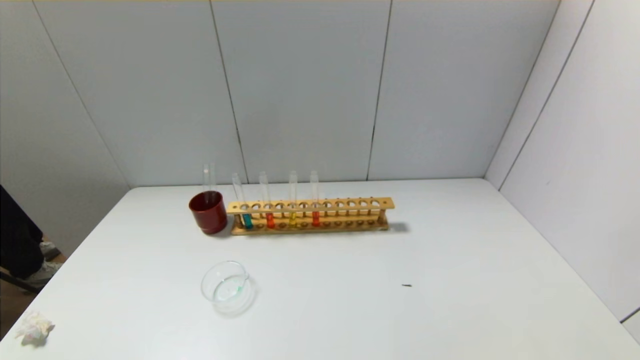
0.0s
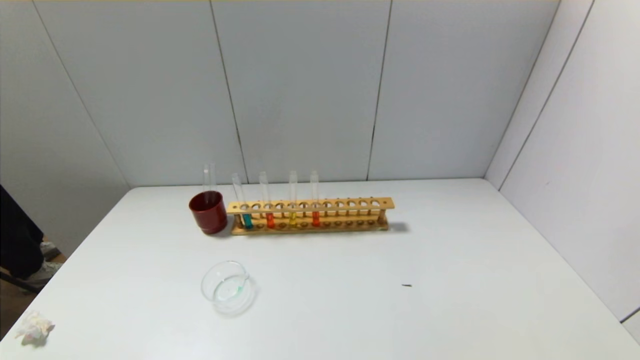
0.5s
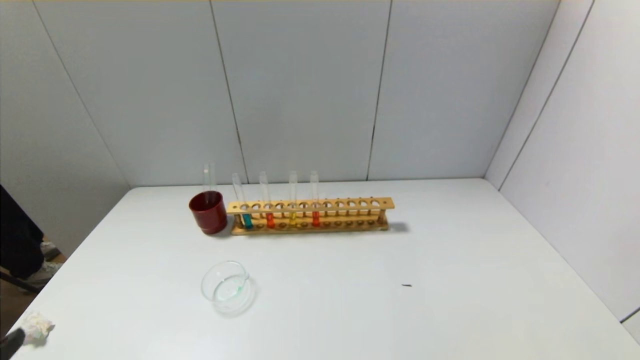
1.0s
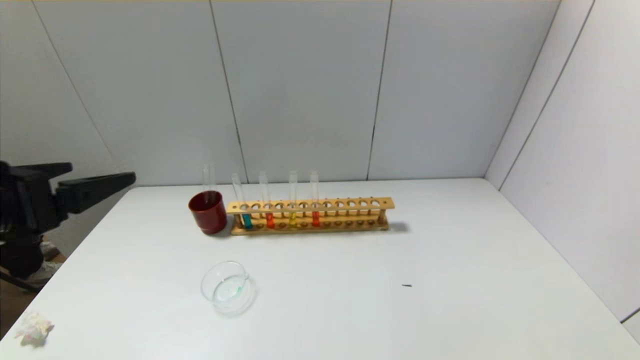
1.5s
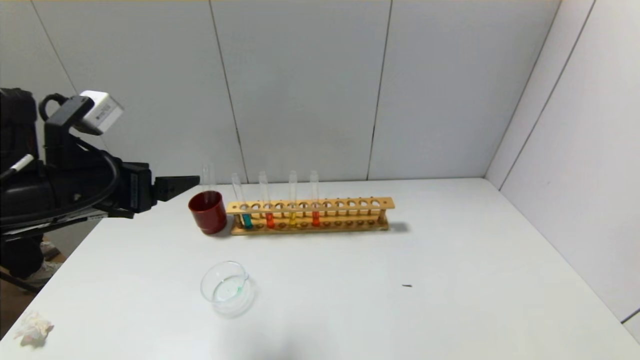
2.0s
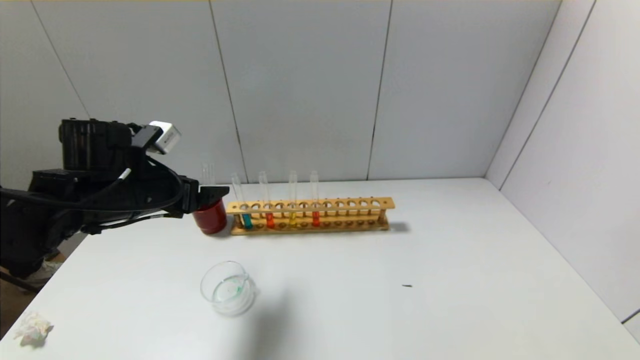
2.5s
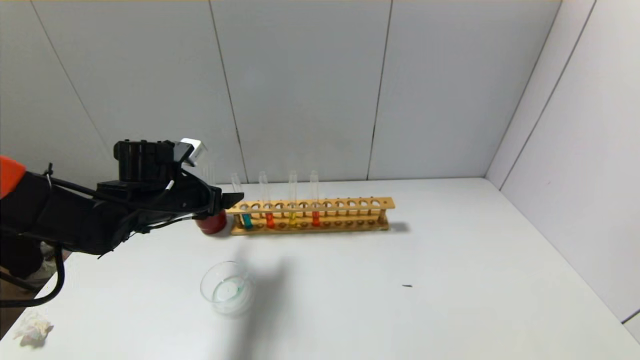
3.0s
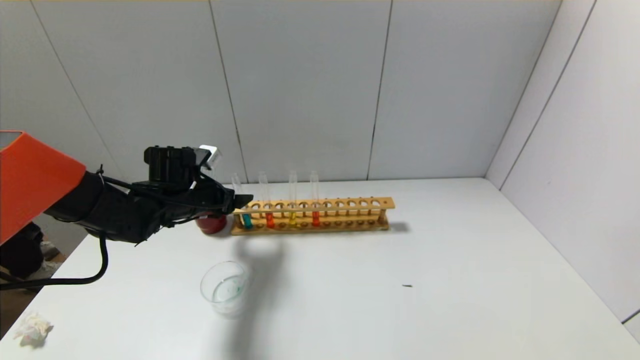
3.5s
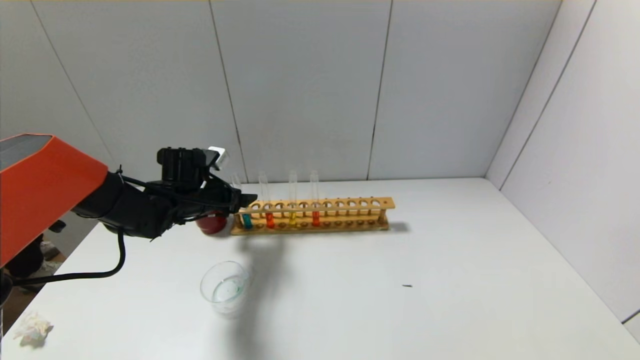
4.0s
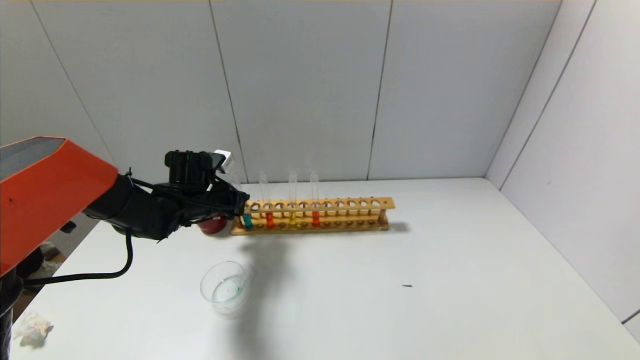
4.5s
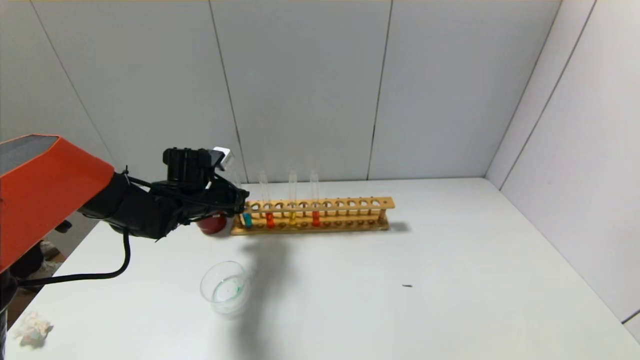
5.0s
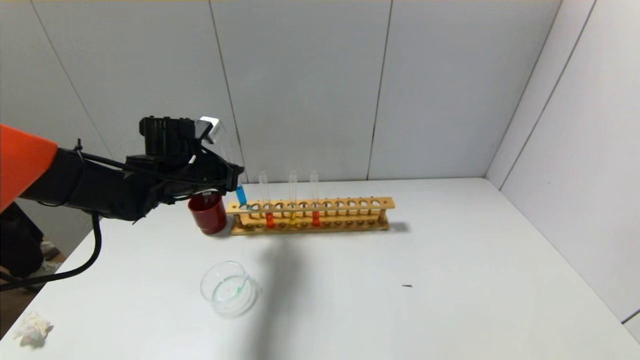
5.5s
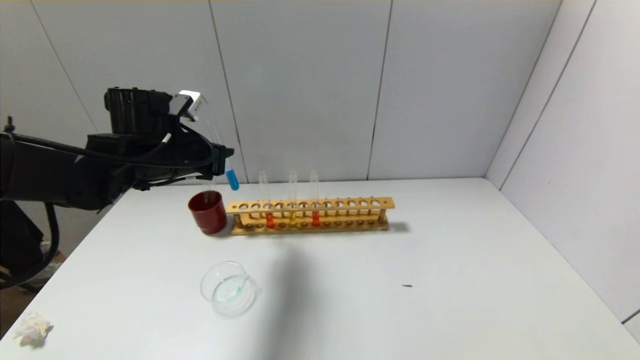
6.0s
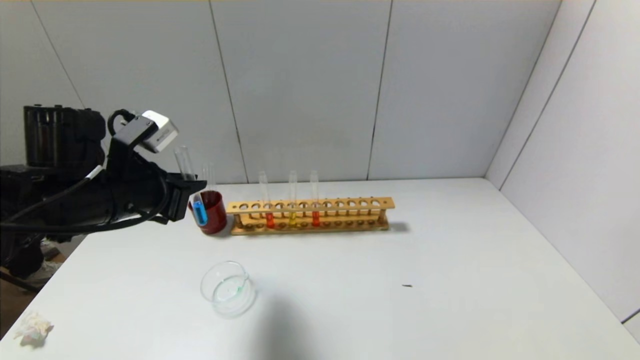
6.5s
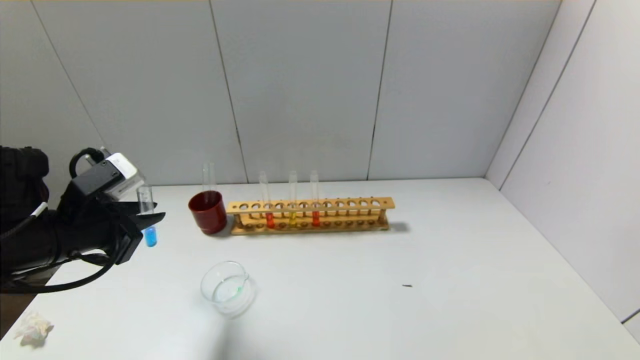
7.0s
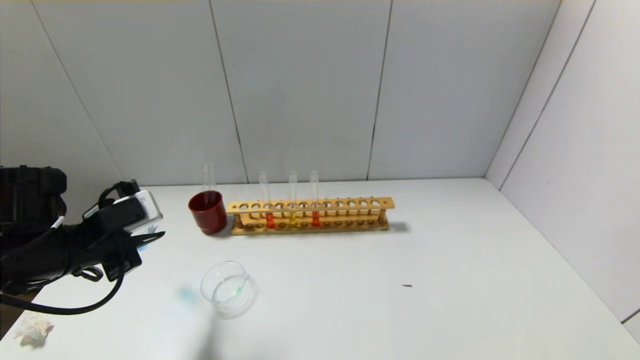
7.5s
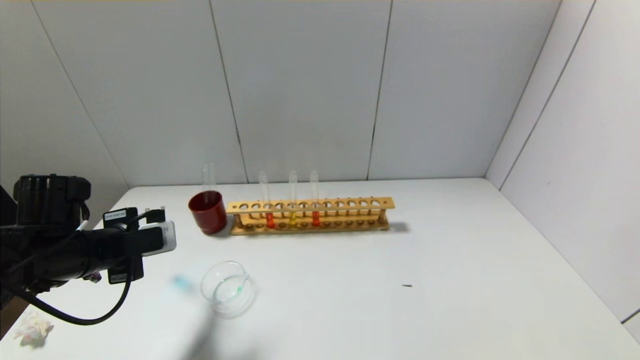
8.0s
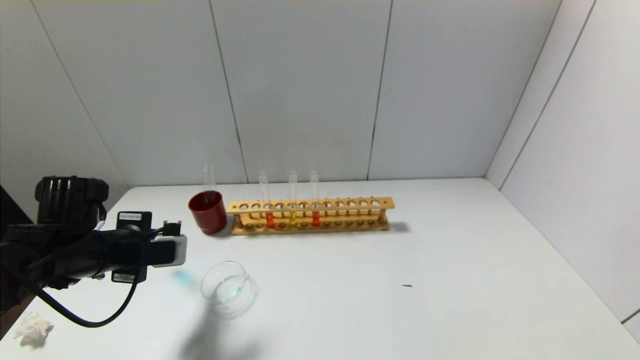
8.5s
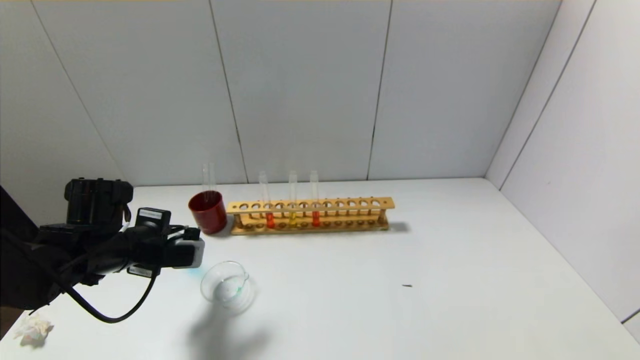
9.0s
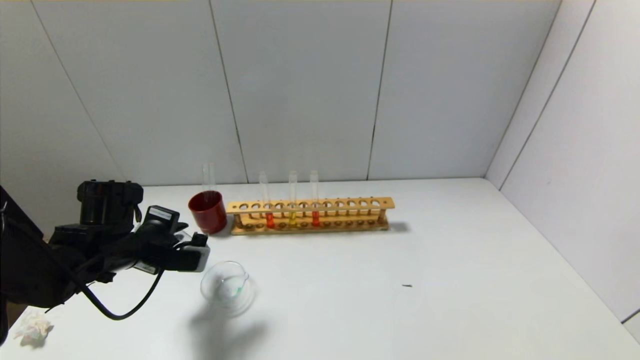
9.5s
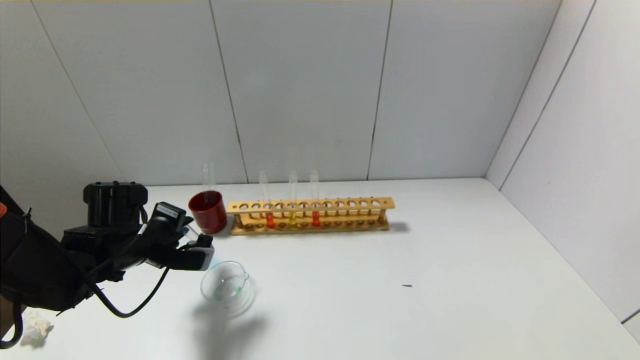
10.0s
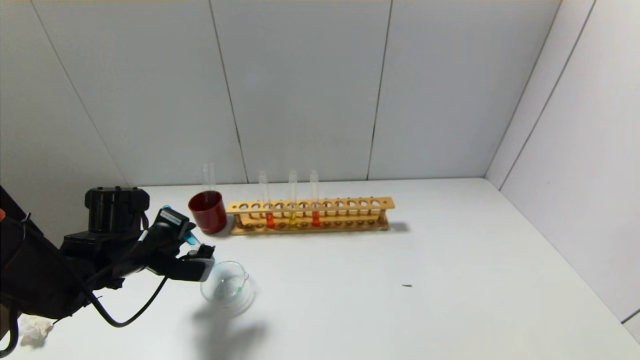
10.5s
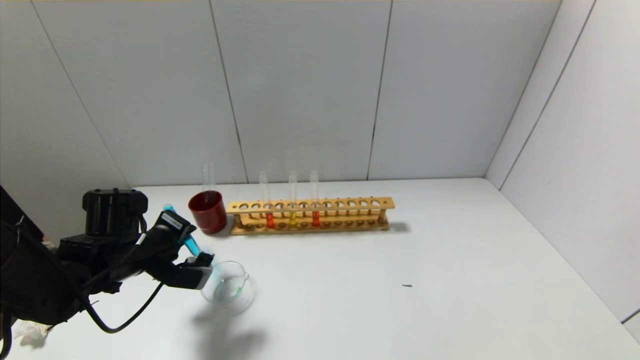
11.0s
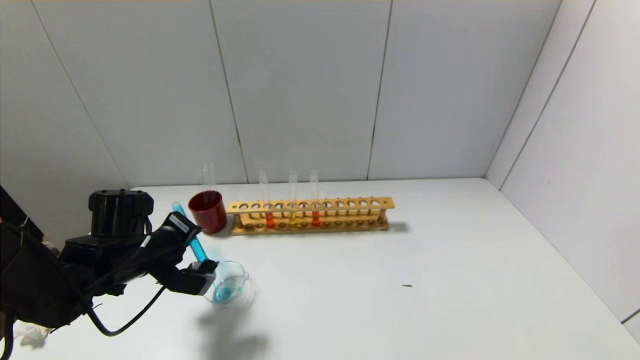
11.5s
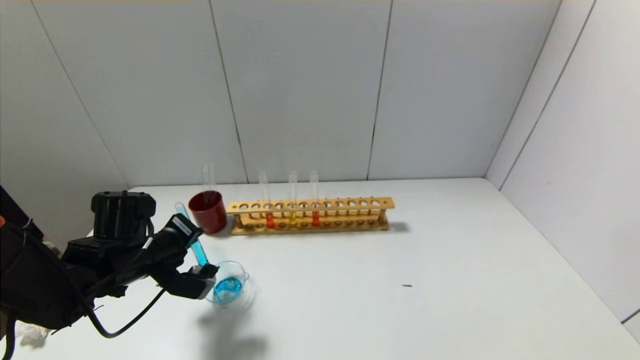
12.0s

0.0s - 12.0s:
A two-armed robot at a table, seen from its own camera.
Step, 0.0s - 4.5s: Grasp the blue reagent with the left gripper.
0.0s - 2.0s: The left gripper heads forward and upward, covering roughly 30 cm.
2.0s - 4.0s: The left gripper is displaced forward and downward by roughly 20 cm.
4.0s - 6.0s: The left gripper goes approximately 10 cm upward and backward, and closes up.
6.0s - 8.0s: The left gripper goes approximately 15 cm backward, downward and to the left.
8.0s - 10.0s: The left gripper changes place by roughly 5 cm.
10.0s - 12.0s: The grippers stay close to where they were, moving slightly.

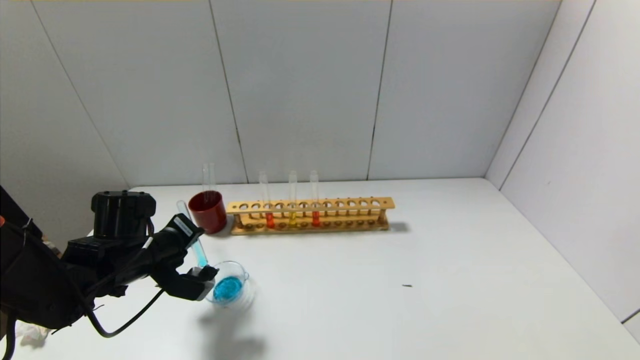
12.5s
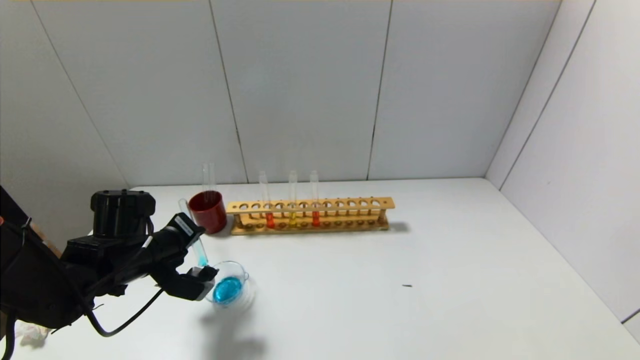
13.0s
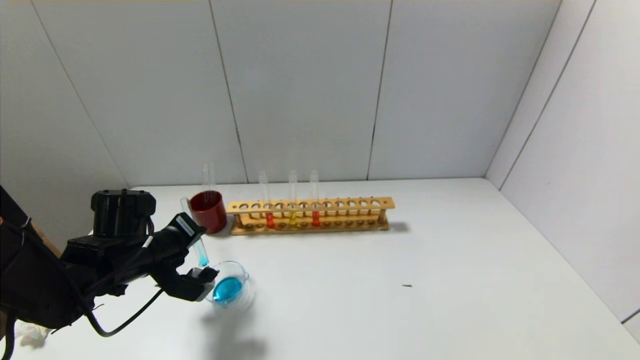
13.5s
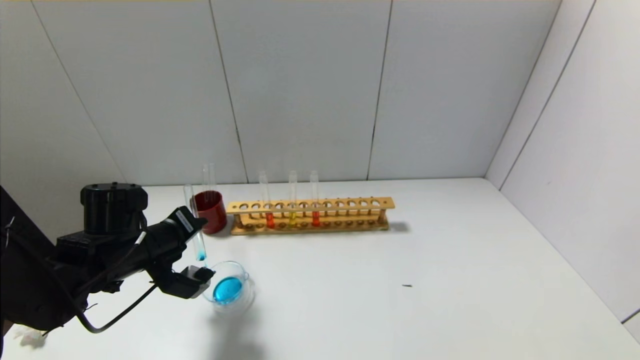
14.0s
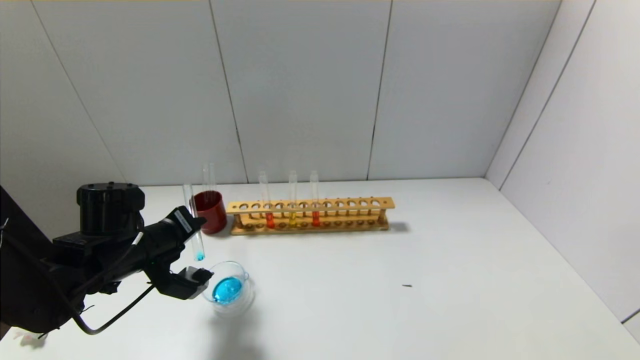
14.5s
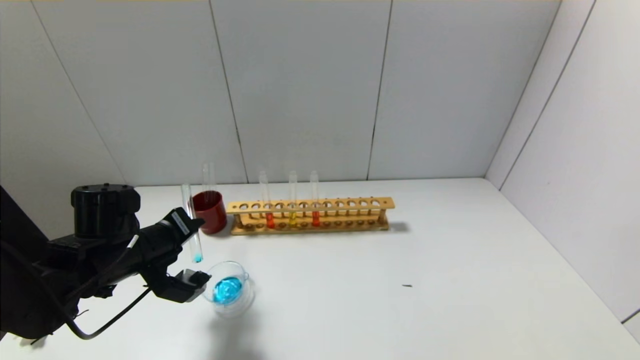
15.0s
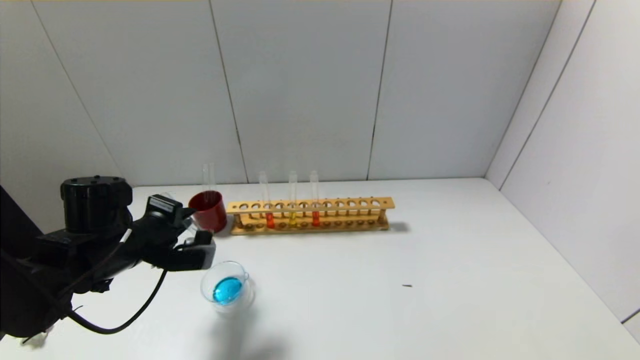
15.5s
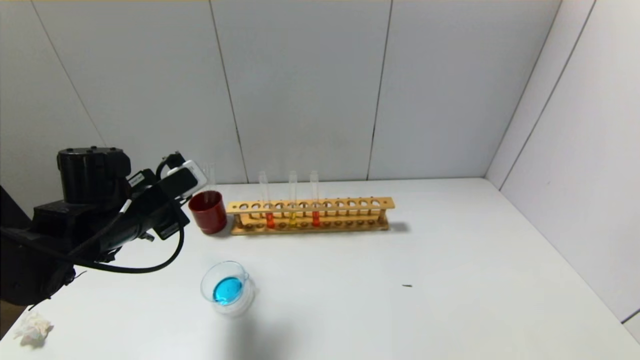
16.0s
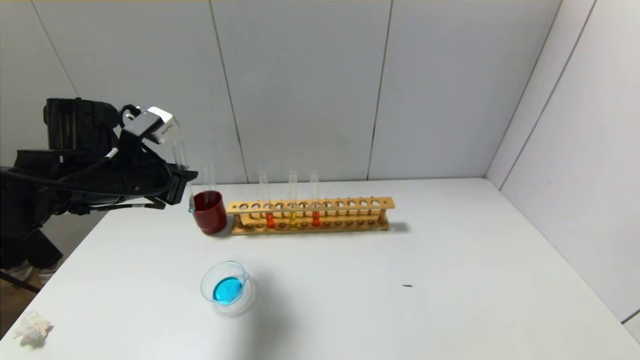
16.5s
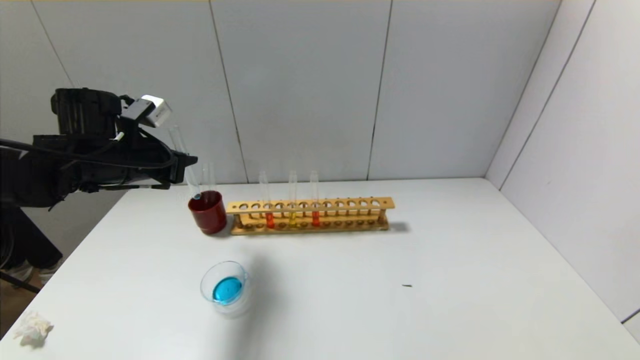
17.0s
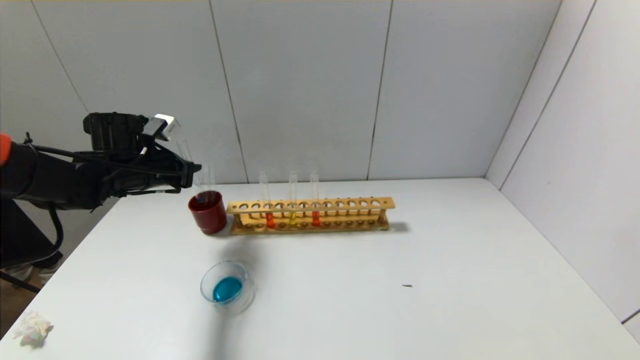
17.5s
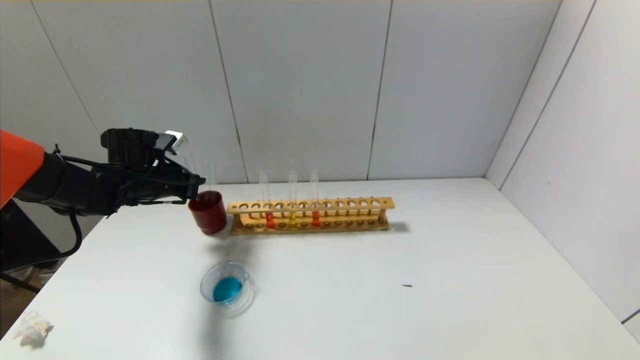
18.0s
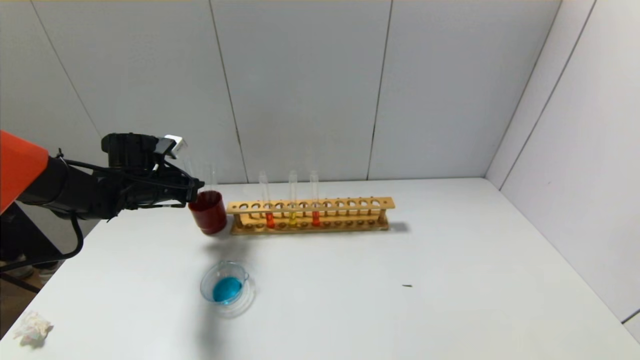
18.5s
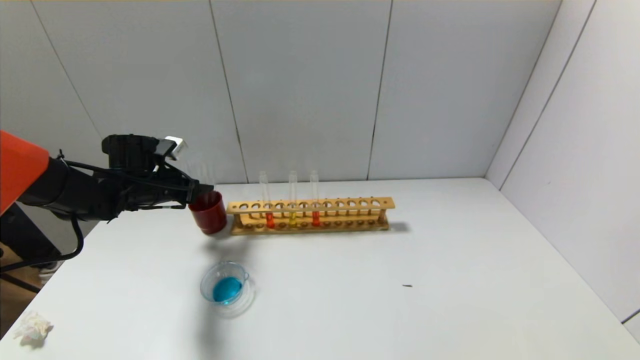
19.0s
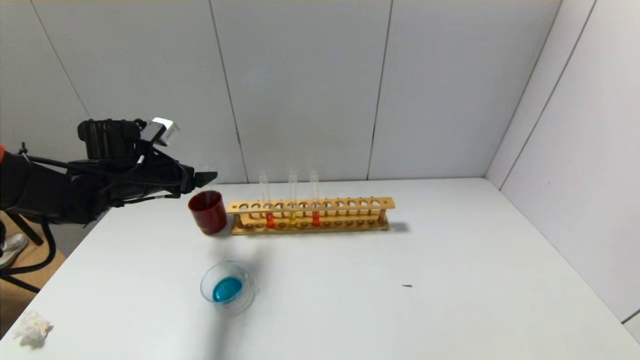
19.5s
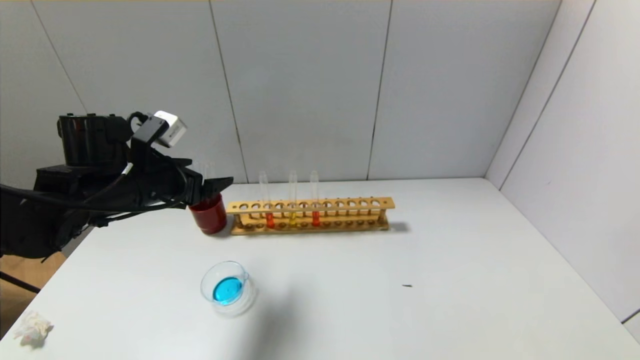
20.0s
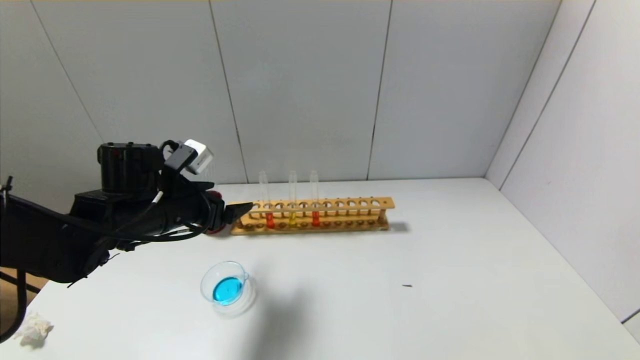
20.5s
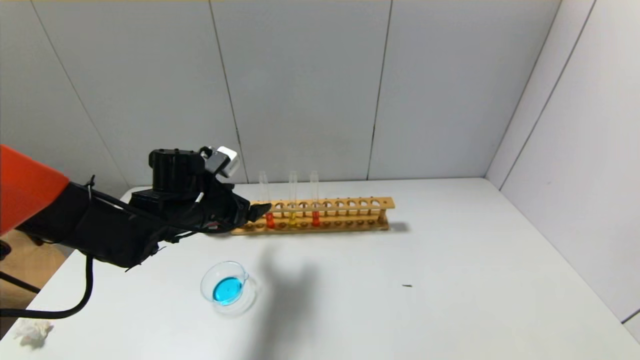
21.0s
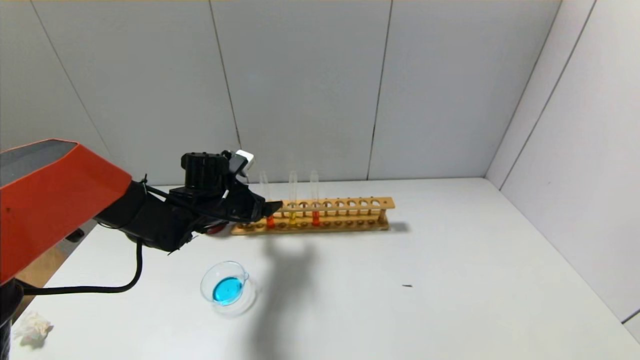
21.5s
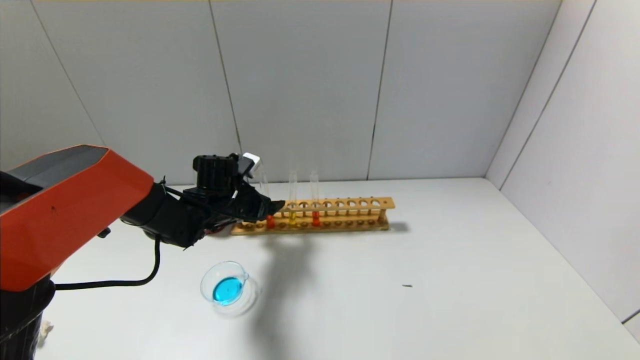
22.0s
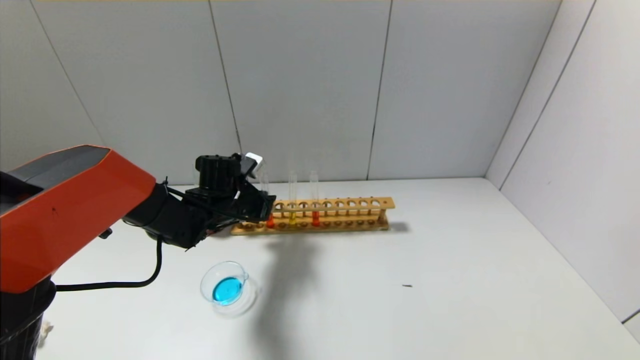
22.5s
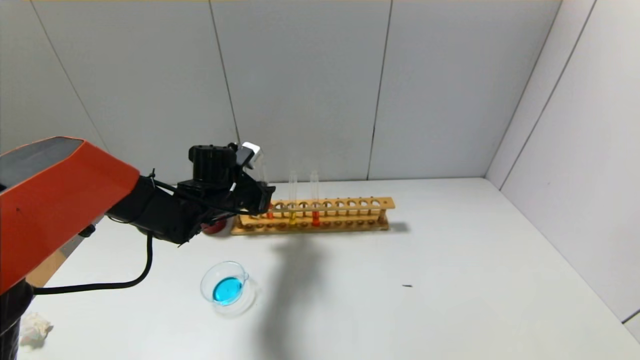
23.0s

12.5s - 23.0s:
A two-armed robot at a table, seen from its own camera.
Step, 12.5s - 15.5s: Pour the blue reagent into the graduated cylinder with the left gripper.
Step, 16.0s - 18.5s: Place the test tube into the brown cup with the left gripper.
Step, 19.0s - 22.5s: Grasp the red reagent with the left gripper.
12.5s - 14.5s: The grippers make only small movements.
14.5s - 16.5s: The left gripper heads upward, covering approximately 10 cm.
16.5s - 19.0s: The left gripper goes some 15 cm forward and downward, and opens up.
19.0s - 21.0s: The left gripper goes some 15 cm to the right and backward.
21.0s - 23.0s: The left gripper shifts roughly 5 cm forward, and closes.
